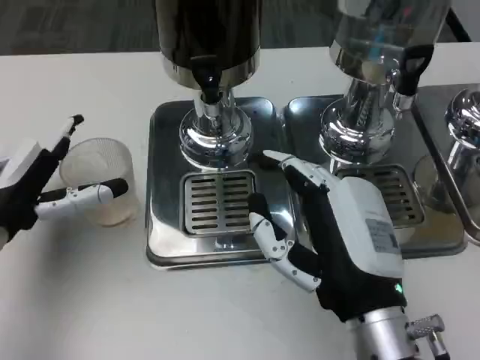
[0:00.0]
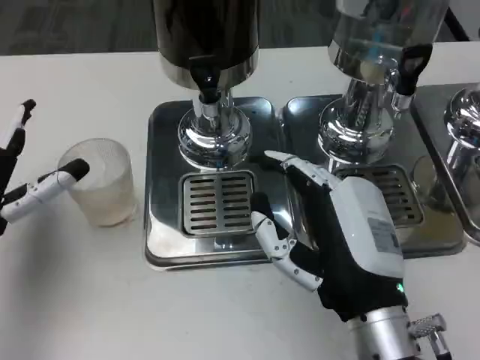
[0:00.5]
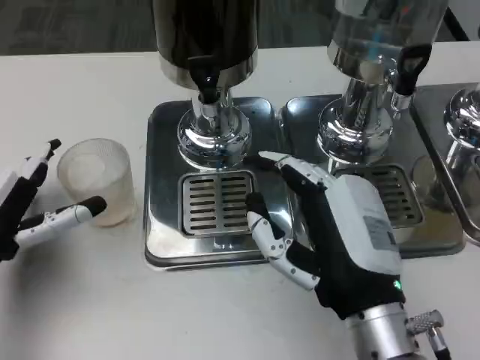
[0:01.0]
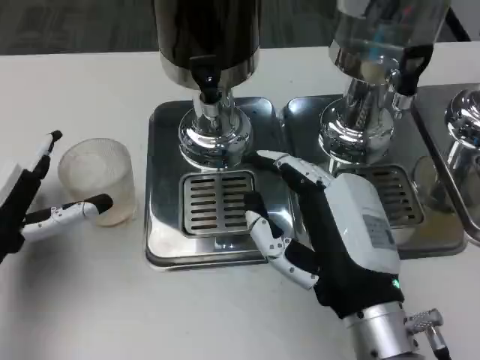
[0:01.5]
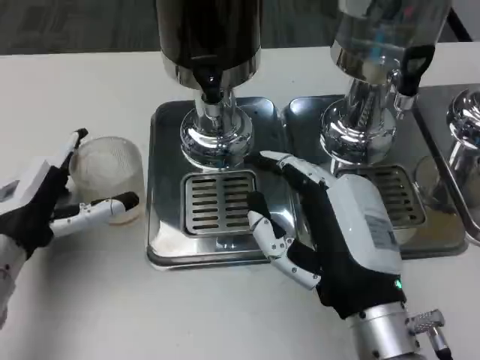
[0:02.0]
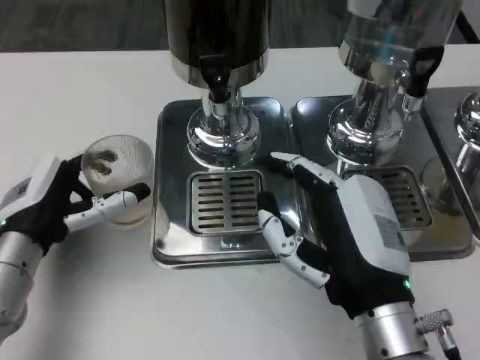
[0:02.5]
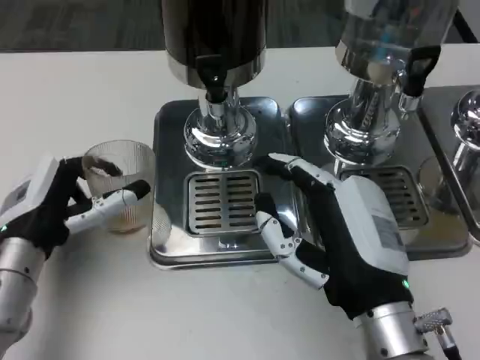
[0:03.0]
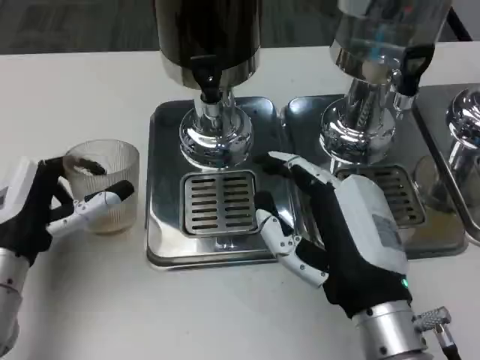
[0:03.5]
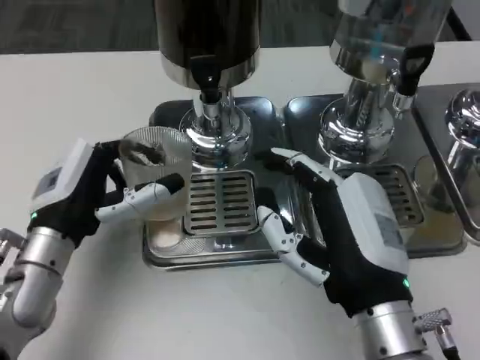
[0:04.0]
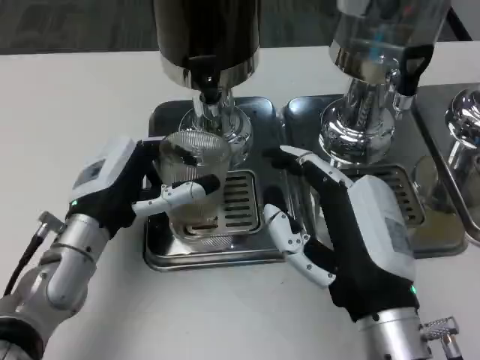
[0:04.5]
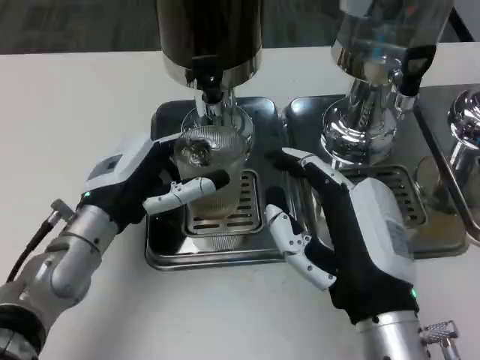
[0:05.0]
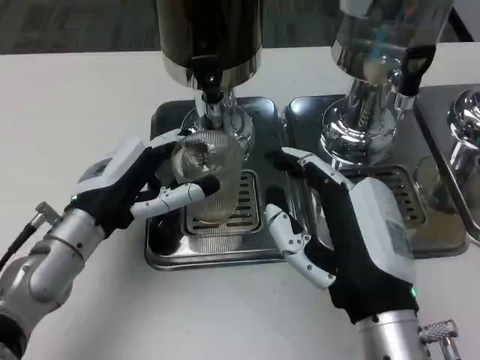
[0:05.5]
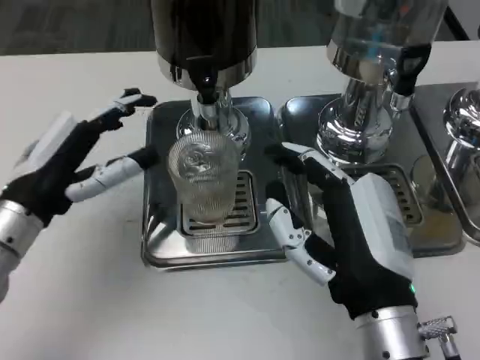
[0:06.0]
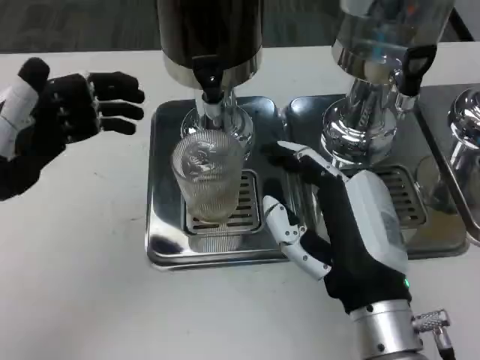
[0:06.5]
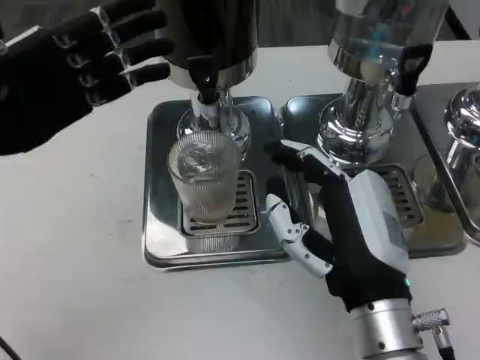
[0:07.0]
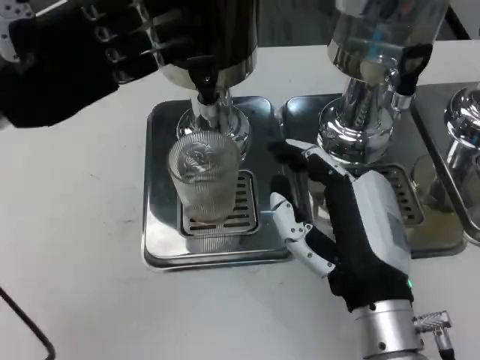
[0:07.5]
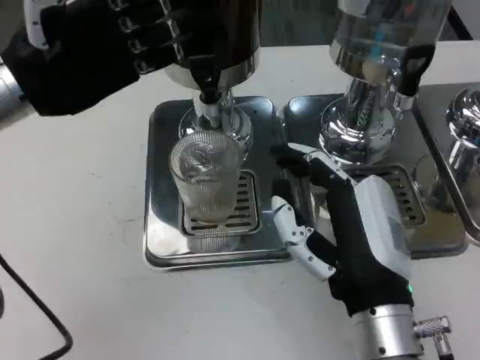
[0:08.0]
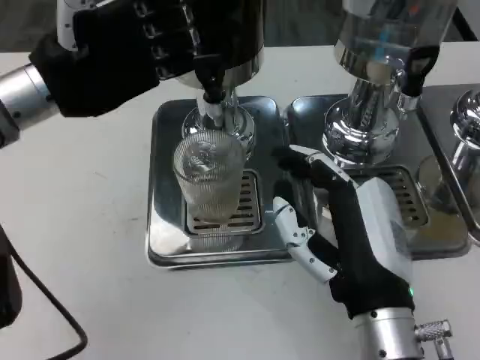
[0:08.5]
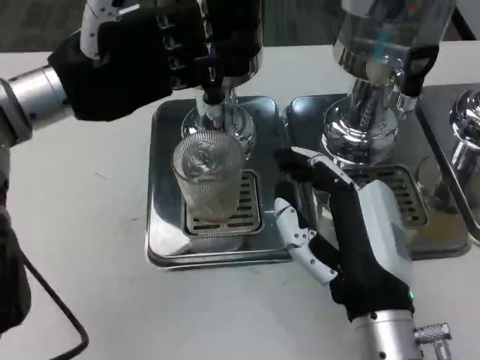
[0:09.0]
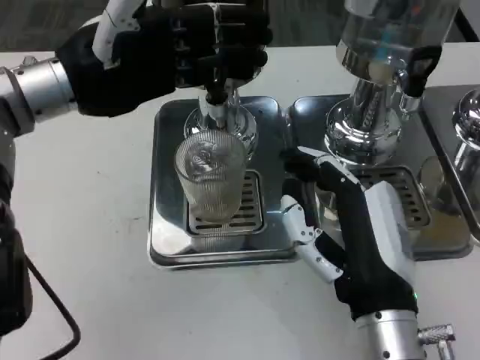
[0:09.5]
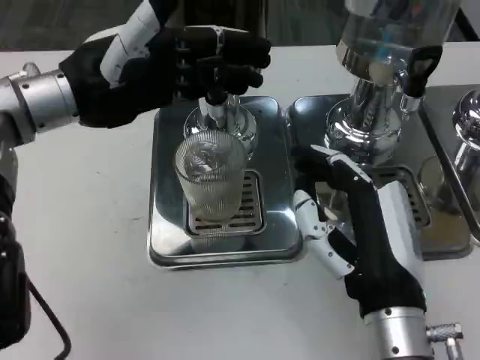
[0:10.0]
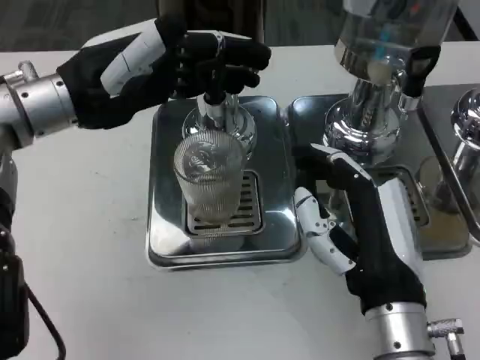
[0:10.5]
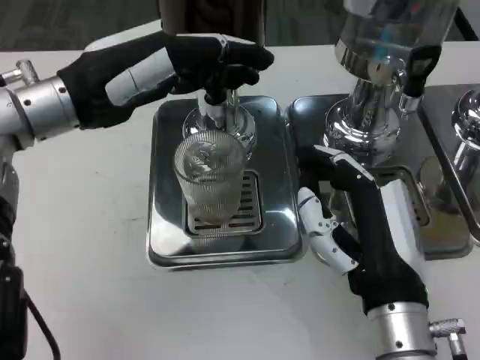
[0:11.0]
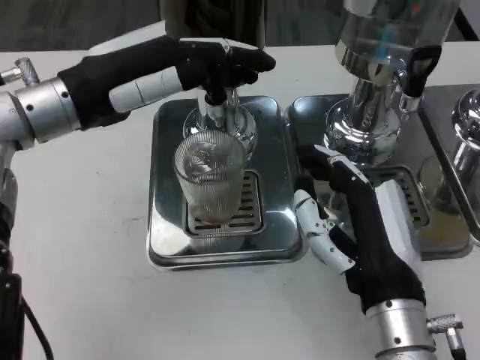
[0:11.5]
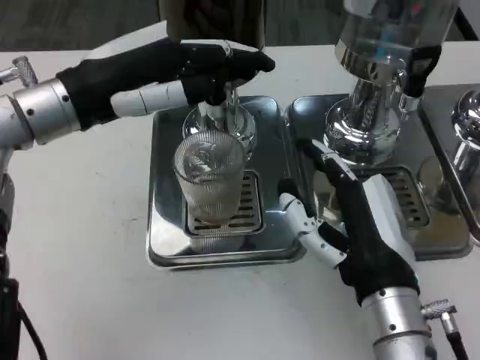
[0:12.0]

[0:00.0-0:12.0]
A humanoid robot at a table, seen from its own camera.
Task of the whole recording: Grasp the cup under the faucet to collect the drink, then remove the cup.
0:00.0 to 0:02.0: The hands move only a little.
0:04.0 to 0:06.0: The left hand moves some 5 cm.
0:06.0 to 0:08.0: The left hand is displaced upward and forward by some 15 cm.

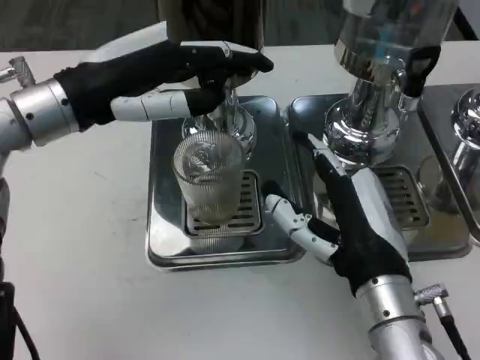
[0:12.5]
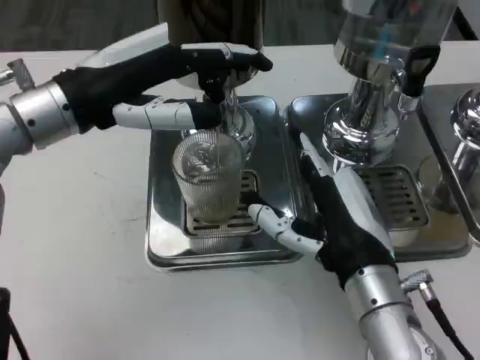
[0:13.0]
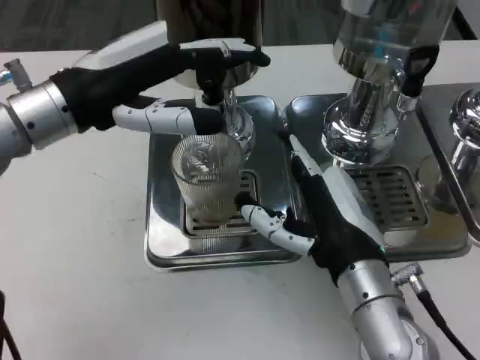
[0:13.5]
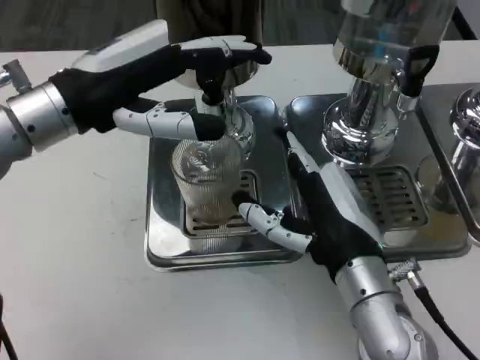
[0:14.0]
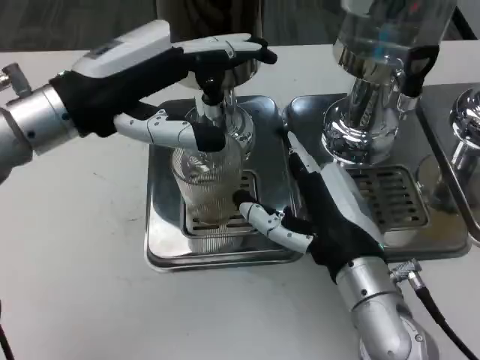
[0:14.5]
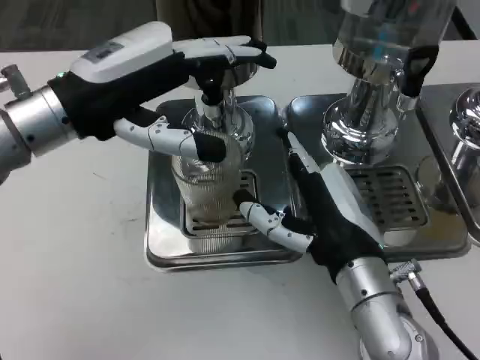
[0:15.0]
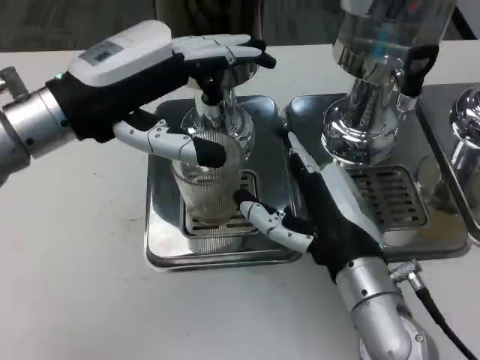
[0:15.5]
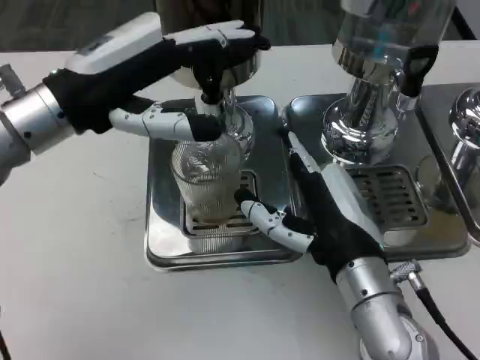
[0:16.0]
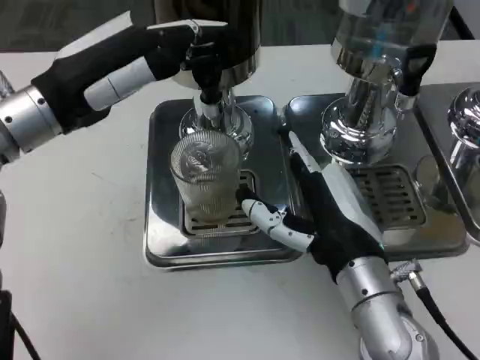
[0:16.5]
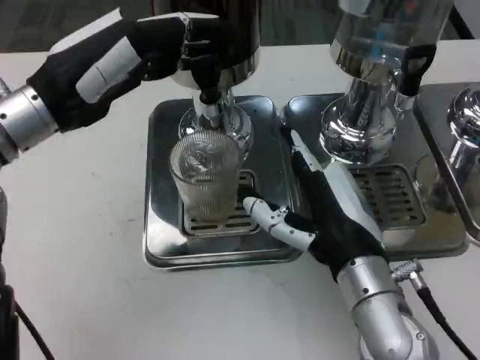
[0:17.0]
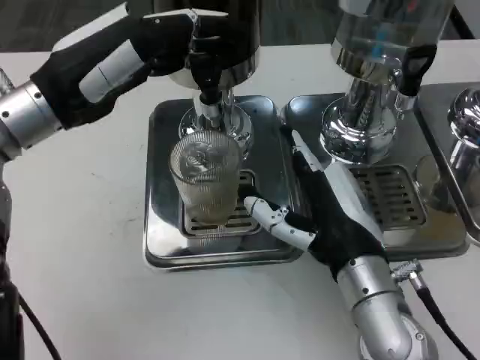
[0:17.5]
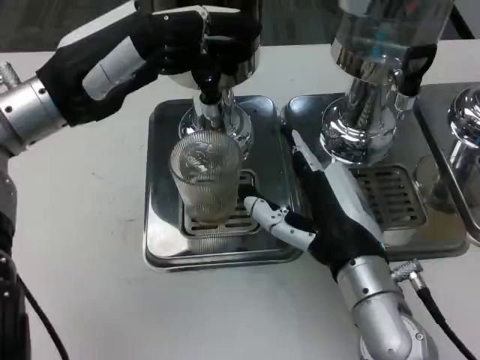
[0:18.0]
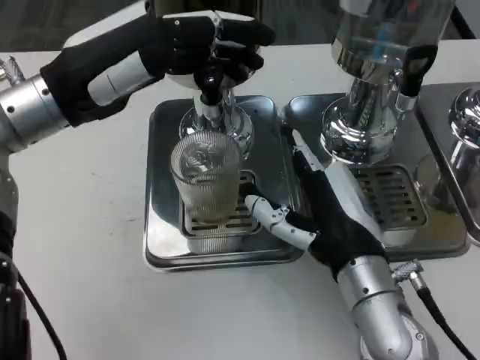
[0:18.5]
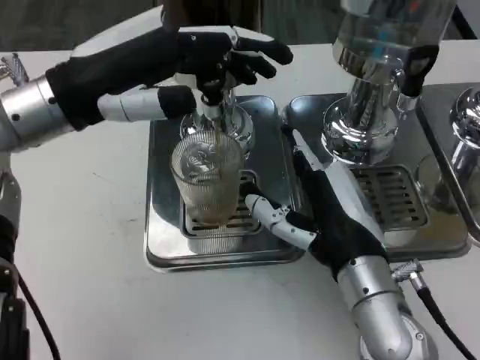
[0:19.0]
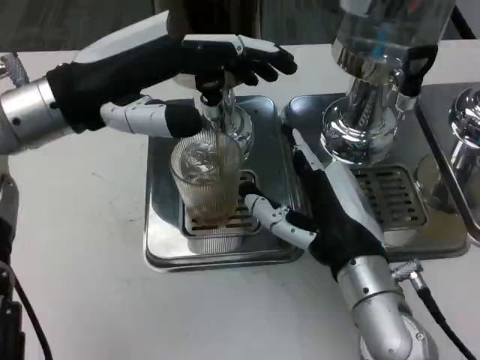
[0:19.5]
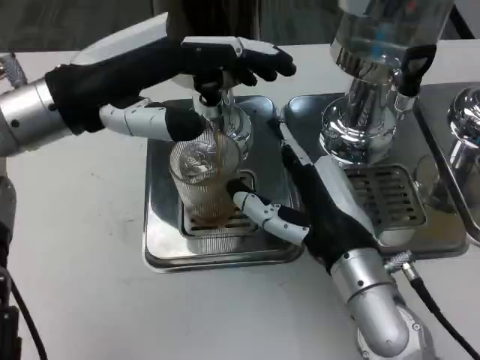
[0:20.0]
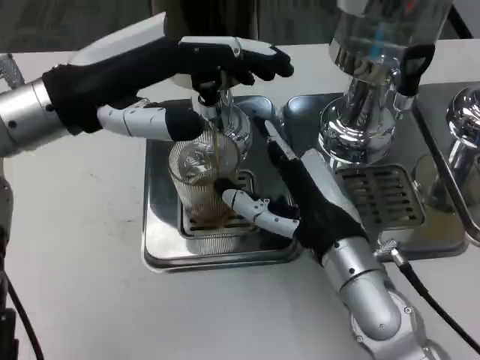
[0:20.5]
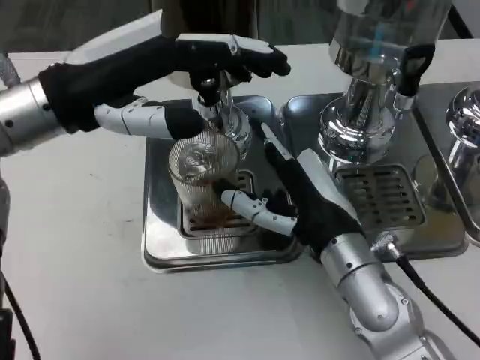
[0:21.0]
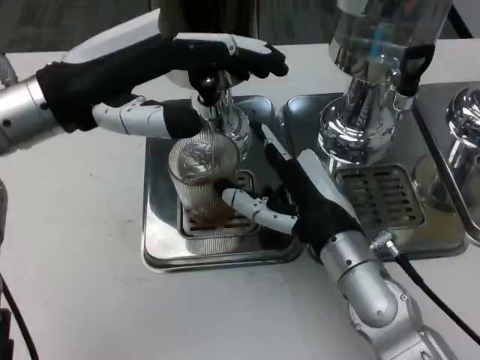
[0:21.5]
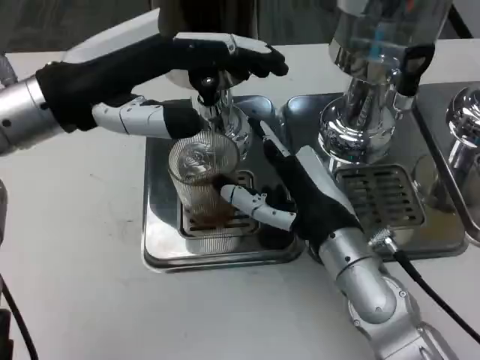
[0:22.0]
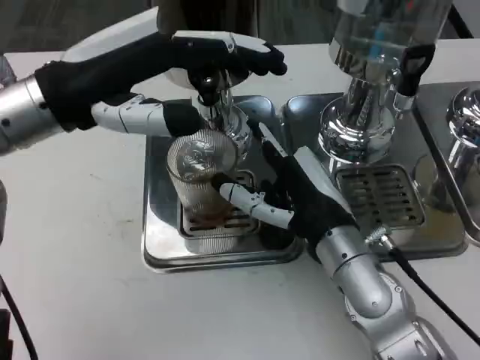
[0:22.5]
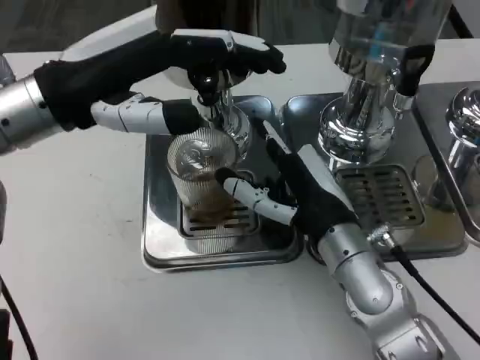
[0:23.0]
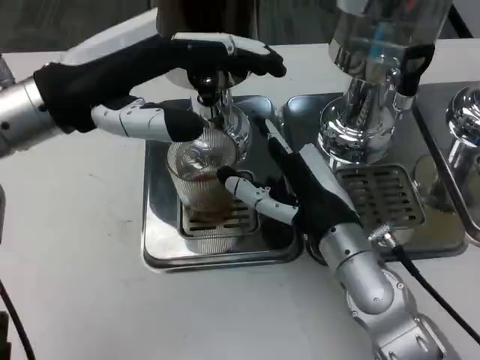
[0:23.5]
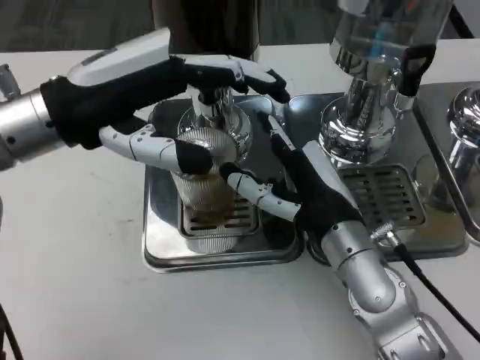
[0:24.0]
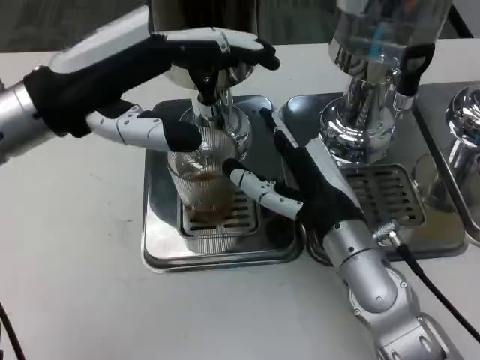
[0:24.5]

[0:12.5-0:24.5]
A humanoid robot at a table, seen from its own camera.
Task of the whole recording: Grasp the cup under the faucet to collect the drink, then remove the cup.
0:16.5 to 0:18.5: The hands make only small movements.
0:20.5 to 0:24.5: The hands stay close to where they were, moving slightly.

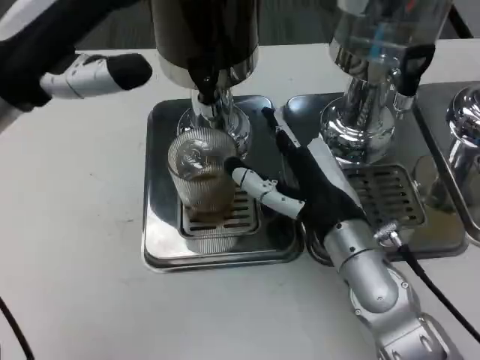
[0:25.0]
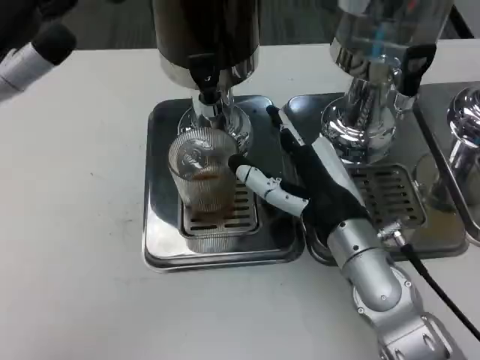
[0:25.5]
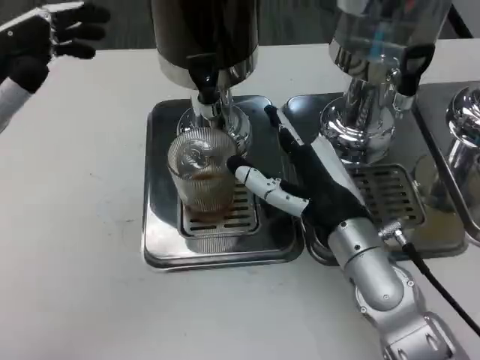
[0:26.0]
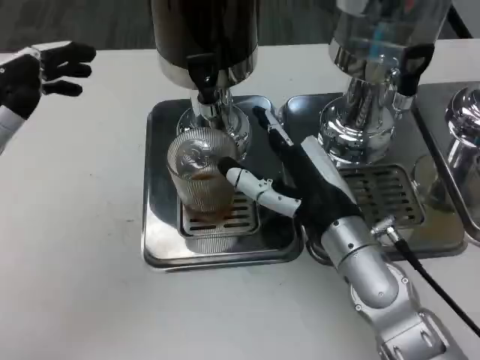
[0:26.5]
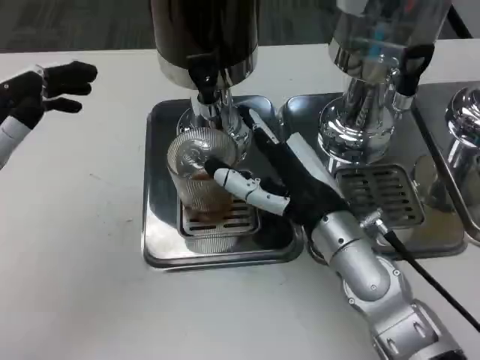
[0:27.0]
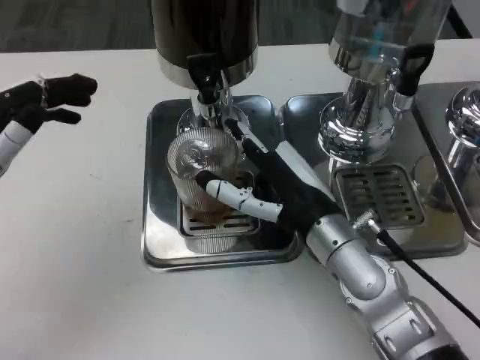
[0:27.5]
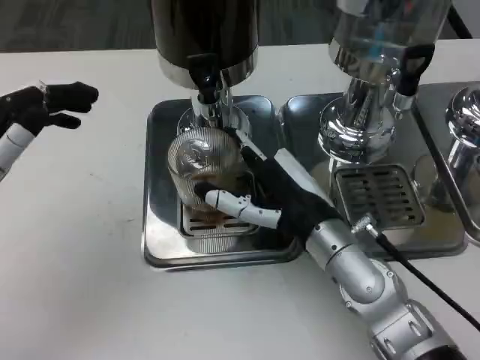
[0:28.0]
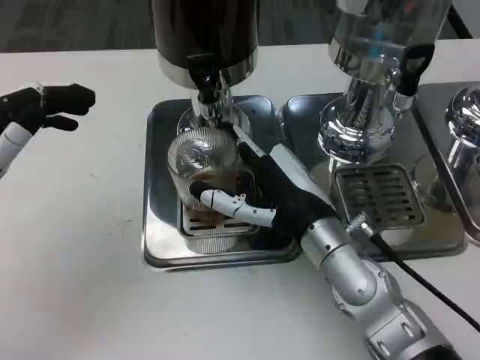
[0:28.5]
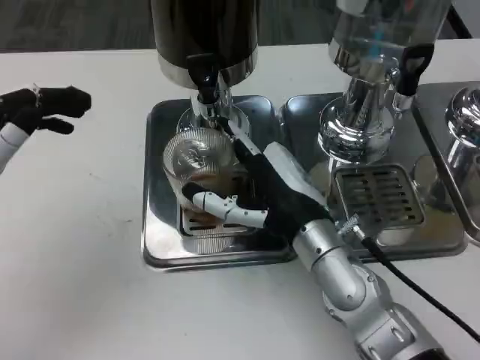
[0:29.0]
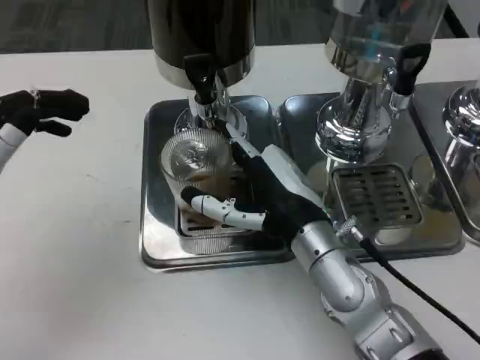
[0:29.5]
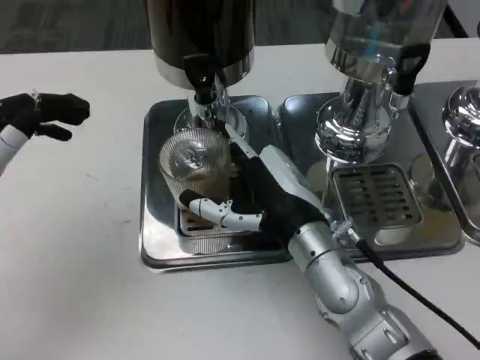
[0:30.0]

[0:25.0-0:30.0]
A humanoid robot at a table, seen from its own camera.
Task of the whole recording: Grasp the cup under the faucet to collect the drink, then remove the cup.
0:25.0 to 0:27.5: The left hand heads downward, backward and to the left, covering about 15 cm.
